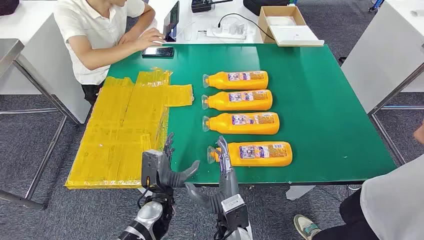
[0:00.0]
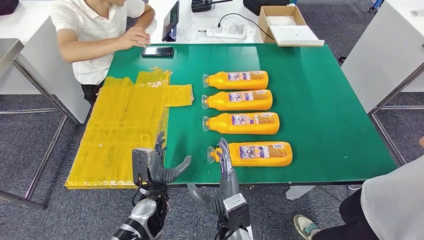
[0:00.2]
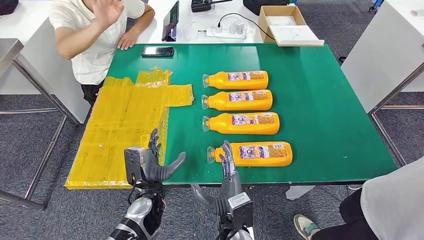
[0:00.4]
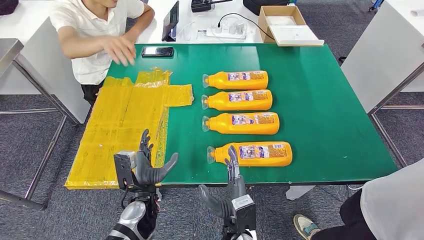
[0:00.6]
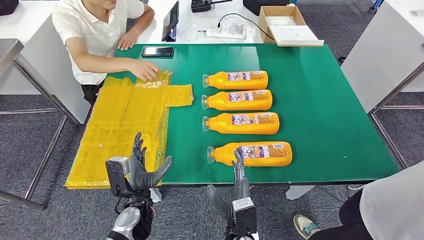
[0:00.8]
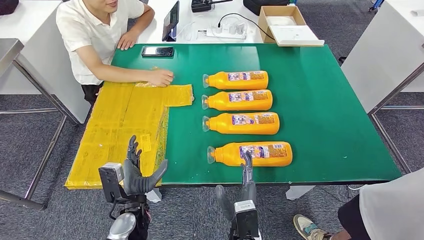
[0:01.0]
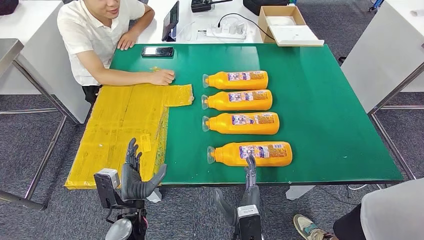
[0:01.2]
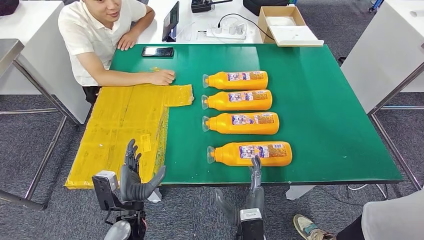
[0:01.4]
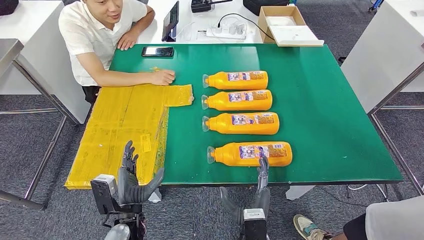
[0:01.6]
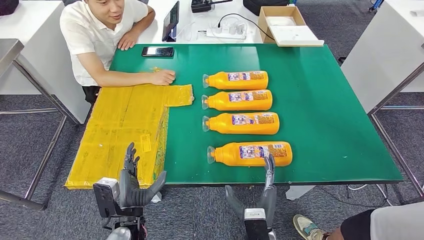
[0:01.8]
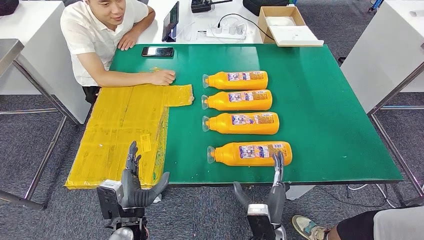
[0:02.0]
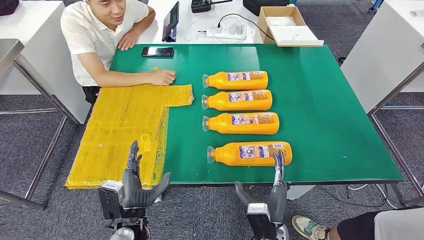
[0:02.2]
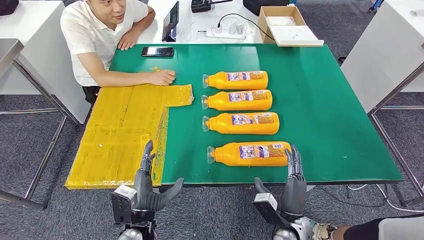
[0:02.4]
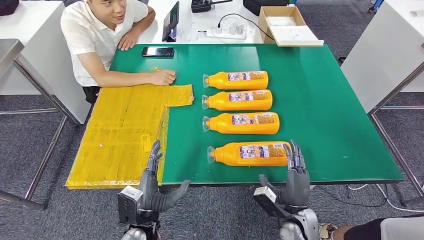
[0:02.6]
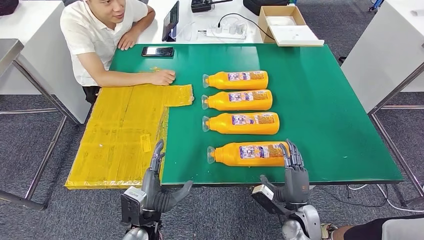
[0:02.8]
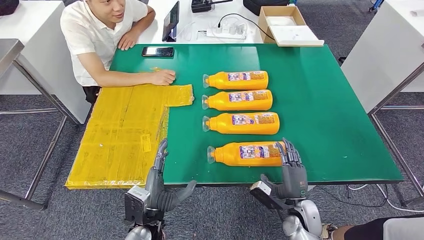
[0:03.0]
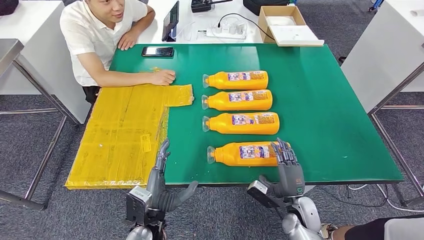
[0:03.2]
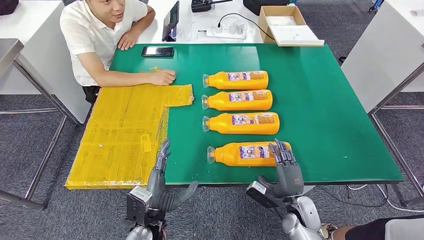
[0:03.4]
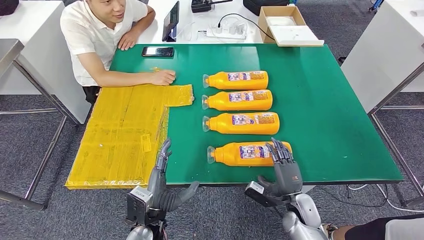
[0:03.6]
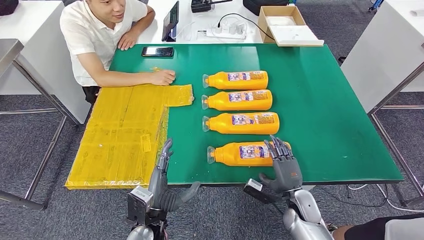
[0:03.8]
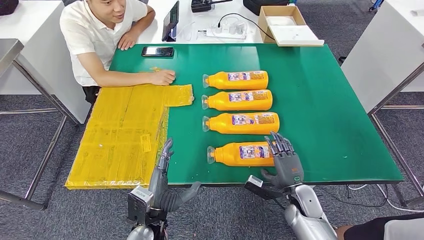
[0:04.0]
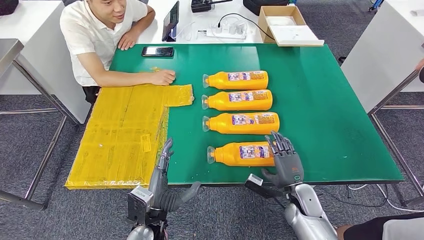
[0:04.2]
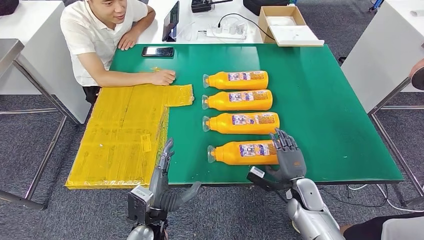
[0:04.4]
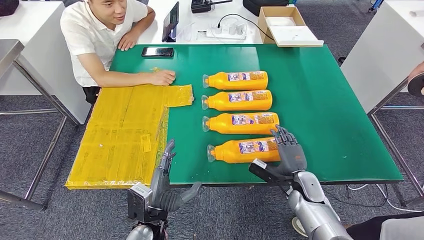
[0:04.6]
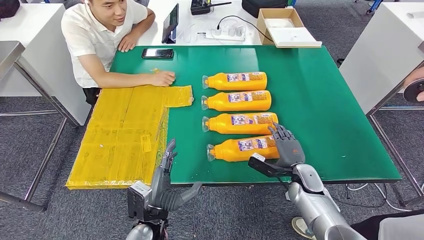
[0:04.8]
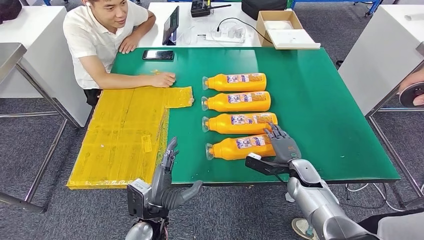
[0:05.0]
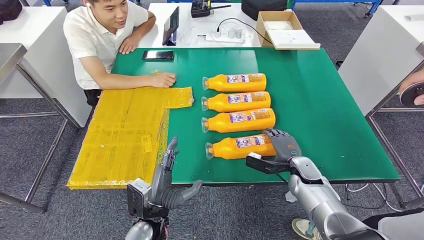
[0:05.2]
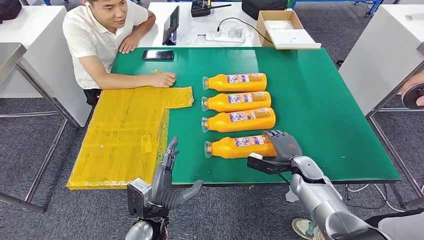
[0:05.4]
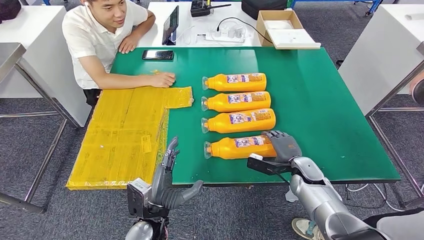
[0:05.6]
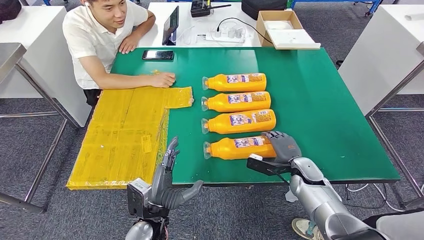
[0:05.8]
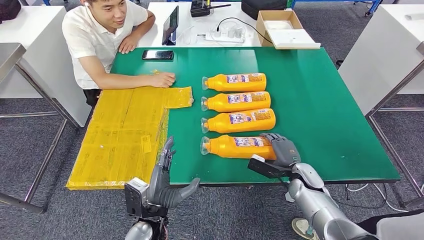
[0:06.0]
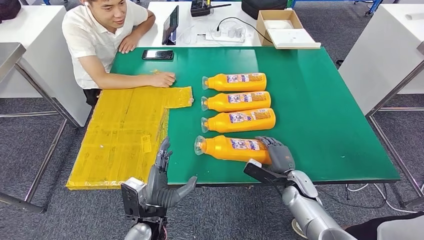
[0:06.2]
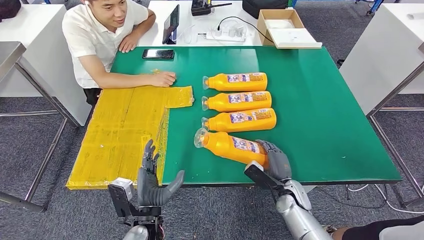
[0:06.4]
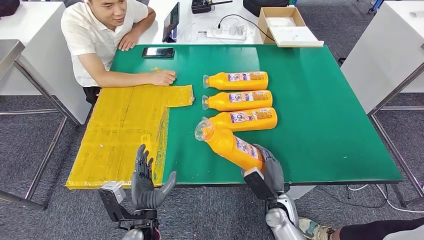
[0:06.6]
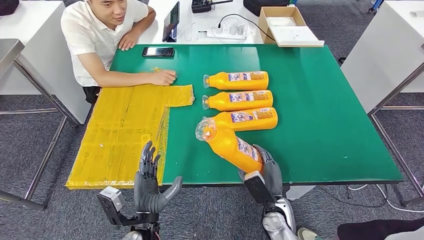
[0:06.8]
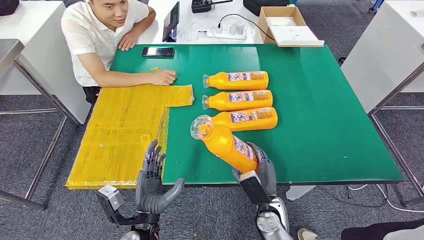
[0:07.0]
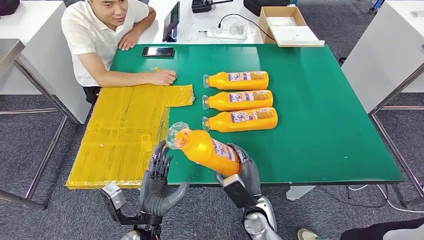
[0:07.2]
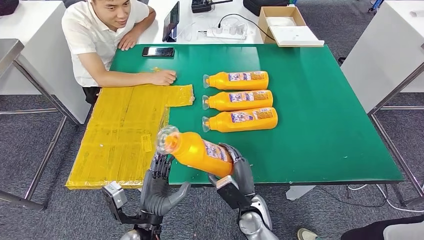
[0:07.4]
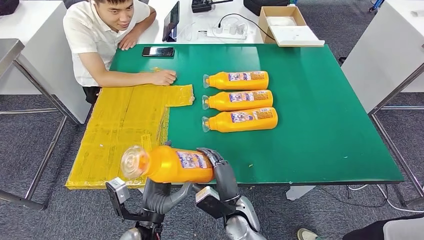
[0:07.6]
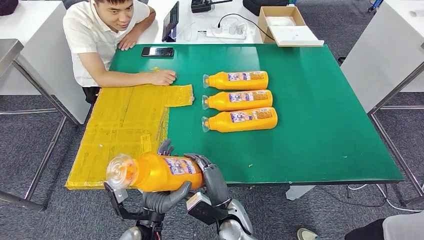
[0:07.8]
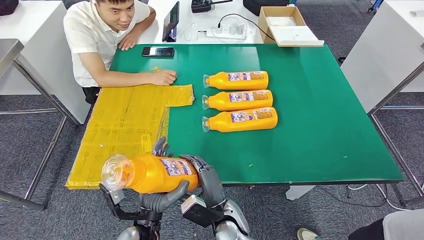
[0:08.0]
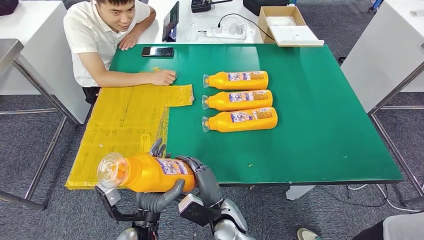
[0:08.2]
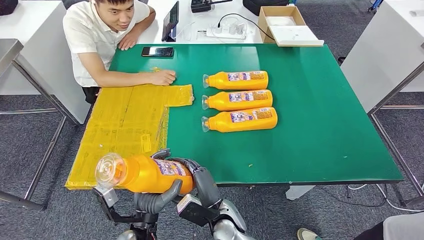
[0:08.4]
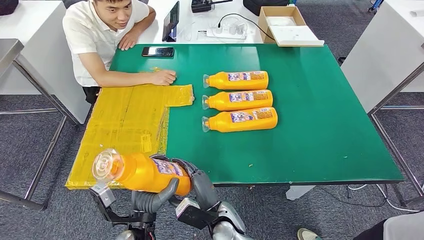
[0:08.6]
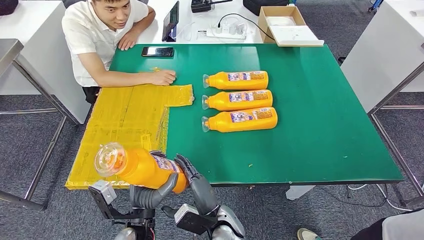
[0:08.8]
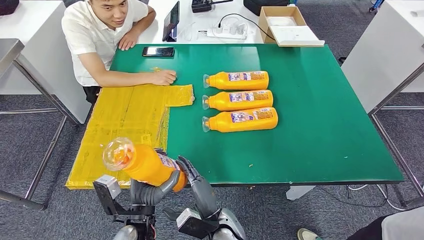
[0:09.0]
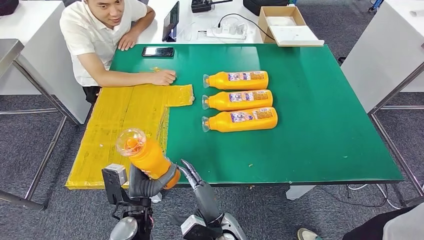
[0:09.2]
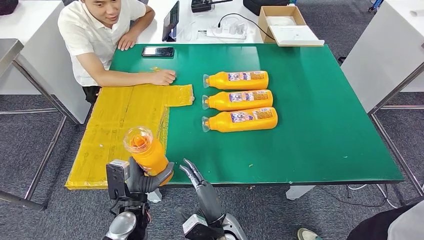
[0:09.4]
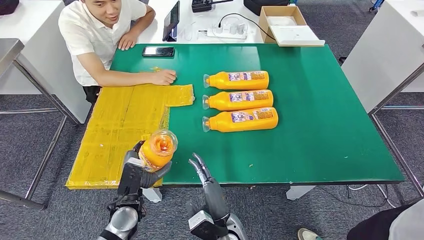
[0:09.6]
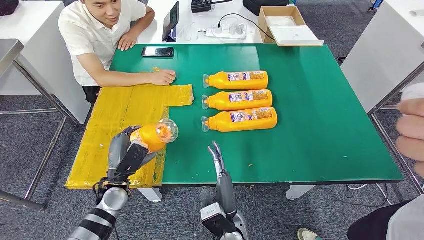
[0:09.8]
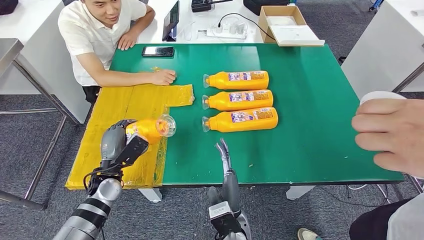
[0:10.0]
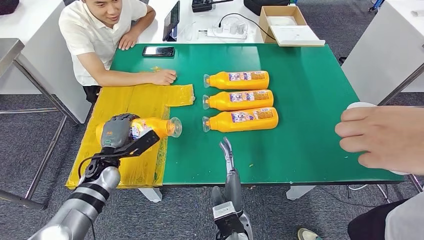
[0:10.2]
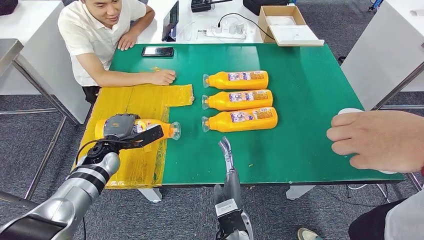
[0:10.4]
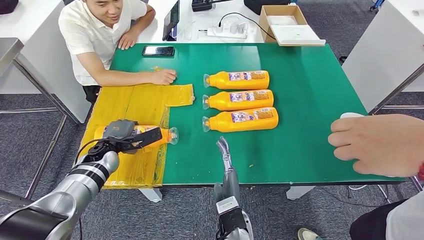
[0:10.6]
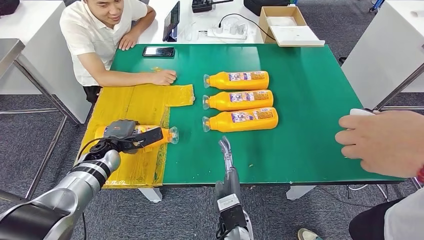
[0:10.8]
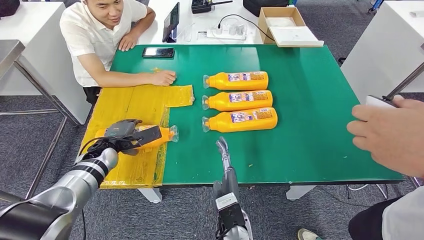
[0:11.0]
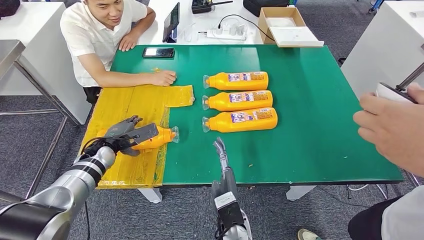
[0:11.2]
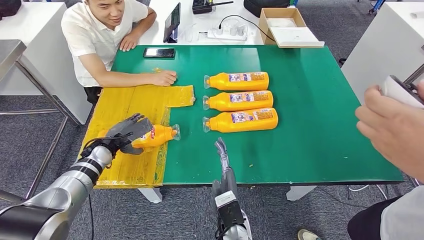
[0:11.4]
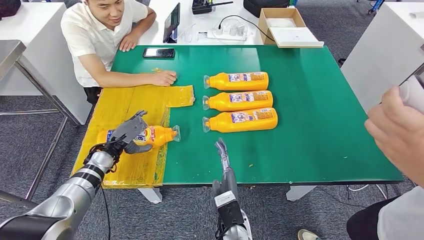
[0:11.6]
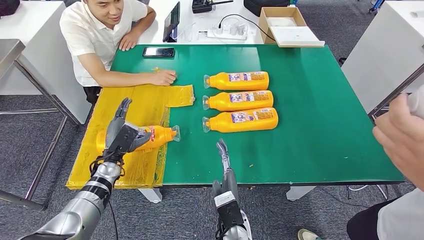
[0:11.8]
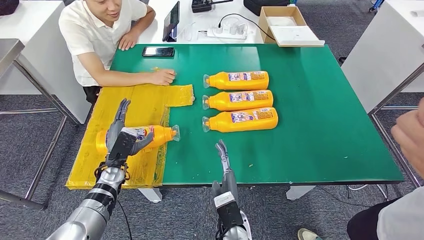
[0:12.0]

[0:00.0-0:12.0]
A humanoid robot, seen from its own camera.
Step, 0.0 to 6.4 s: Take the fast-moving consumer goods bottle from the table.
1.6 to 3.0 s: The right hand goes some 20 cm to the right and forward; the left hand changes place by roughly 5 cm.
3.0 to 4.4 s: The right hand heads forward, covering about 5 cm.
7.6 to 9.0 s: The right hand shifts by about 5 cm.
10.4 to 12.0 s: The left hand changes place by approximately 5 cm.

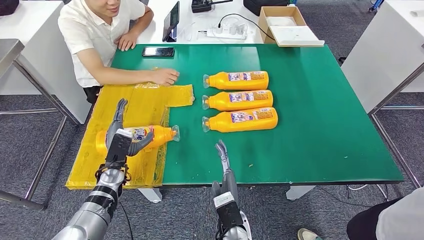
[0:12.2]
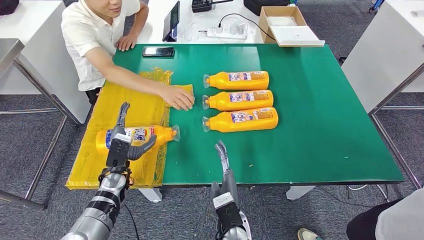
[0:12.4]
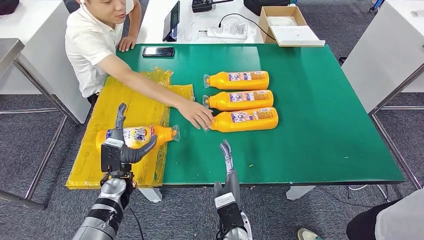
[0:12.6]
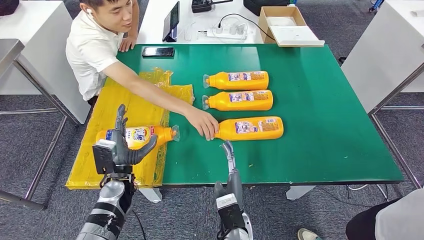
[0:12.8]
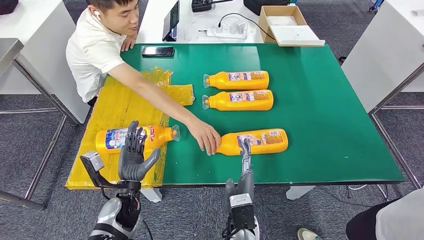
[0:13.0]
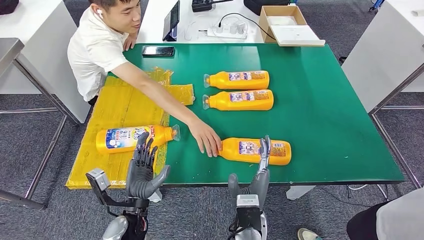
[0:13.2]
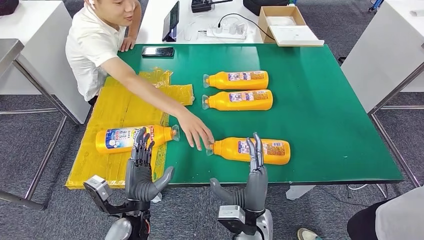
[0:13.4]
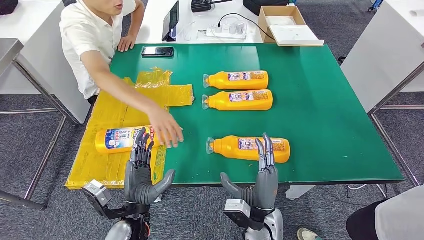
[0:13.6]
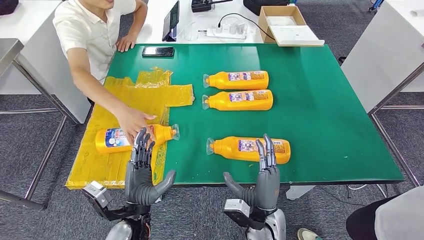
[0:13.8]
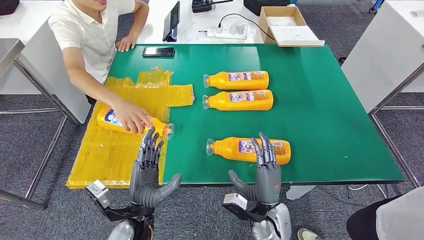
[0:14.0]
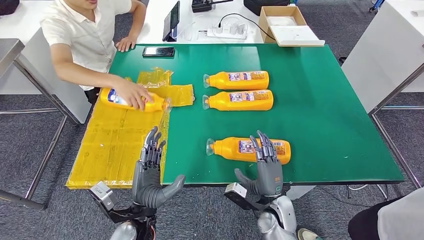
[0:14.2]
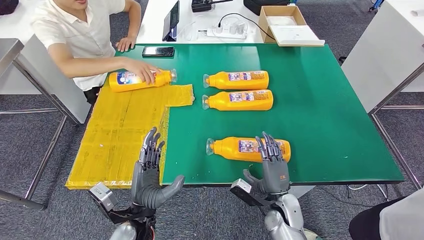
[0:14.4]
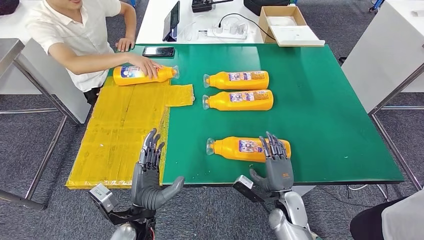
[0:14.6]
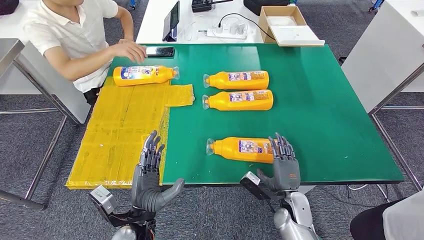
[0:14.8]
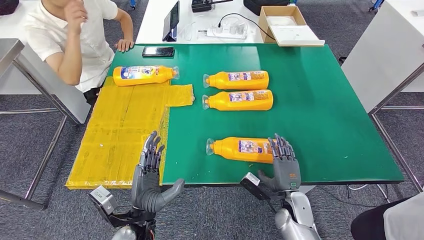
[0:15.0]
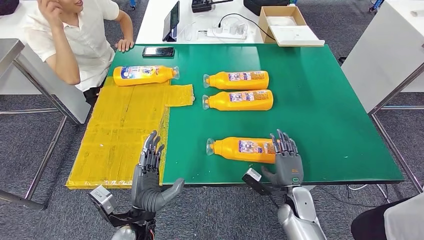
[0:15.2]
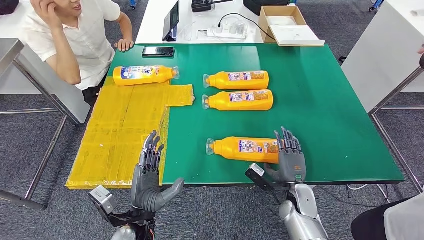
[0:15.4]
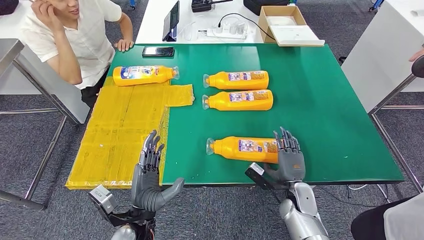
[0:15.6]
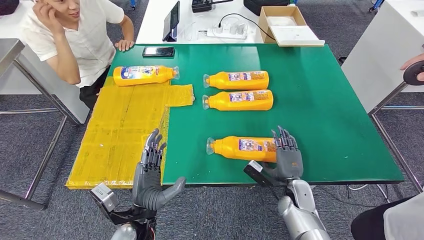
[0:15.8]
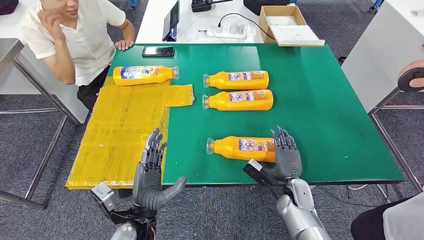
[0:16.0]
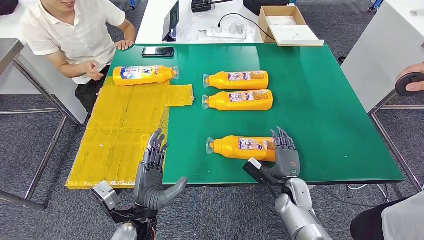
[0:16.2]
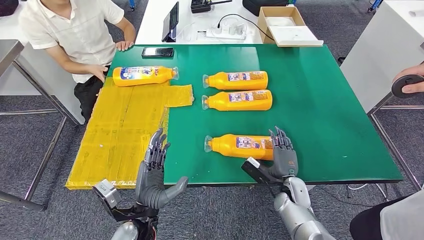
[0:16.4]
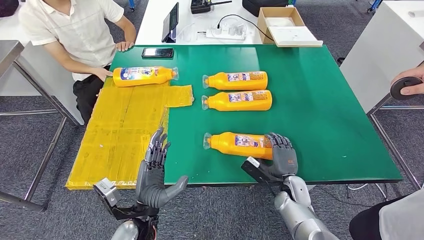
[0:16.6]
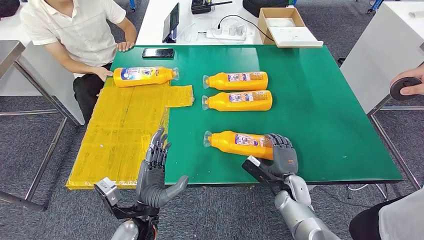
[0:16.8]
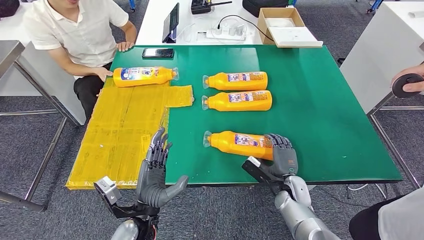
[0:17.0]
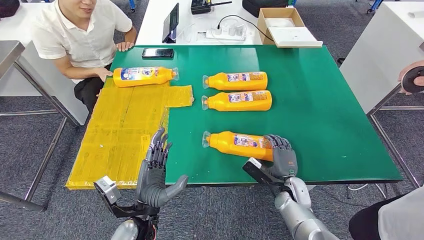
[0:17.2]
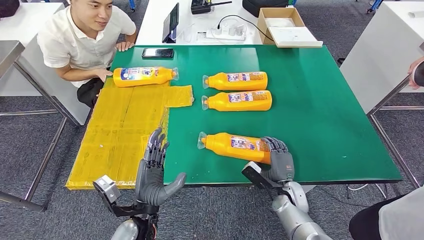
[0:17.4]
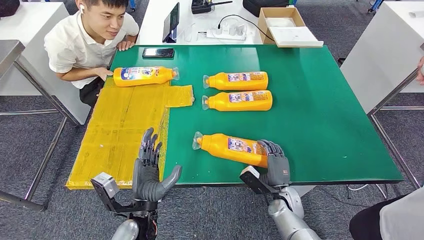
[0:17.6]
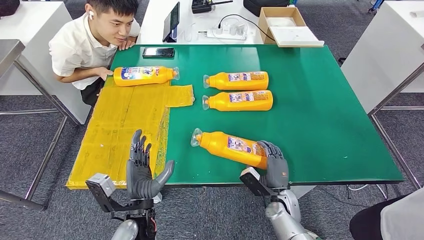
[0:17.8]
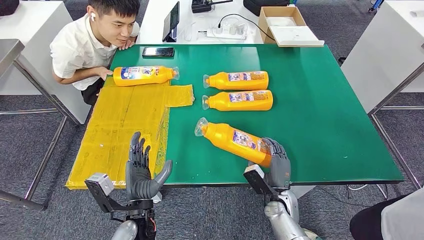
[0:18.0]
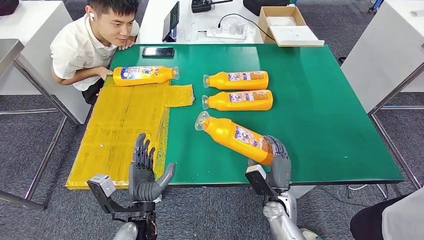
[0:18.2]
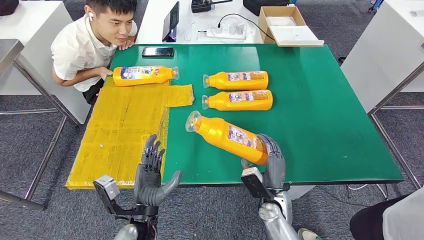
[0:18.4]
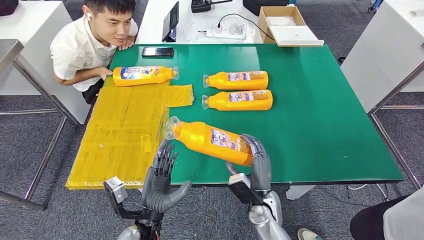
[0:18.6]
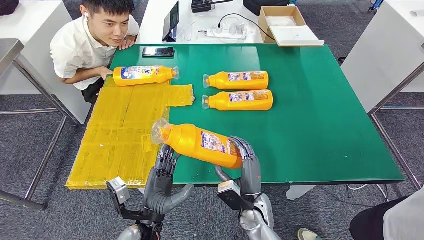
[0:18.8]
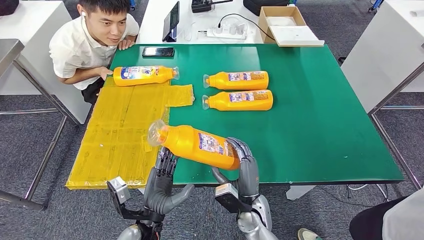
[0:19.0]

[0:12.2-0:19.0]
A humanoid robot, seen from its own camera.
Step, 12.4 to 18.4 s: Pick up the fast-moving consumer goods bottle from the table.
12.2 to 13.6 s: The right hand is displaced to the right by about 10 cm. Meanwhile the left hand travels backward and to the right by roughly 15 cm.
13.6 to 15.0 s: The right hand travels to the right and downward by about 15 cm.
15.0 to 16.2 s: The hands stay close to where they were, moving slightly.
16.2 to 17.6 s: The hands stay close to where they were, moving slightly.
17.6 to 19.0 s: The right hand goes roughly 10 cm to the left.
